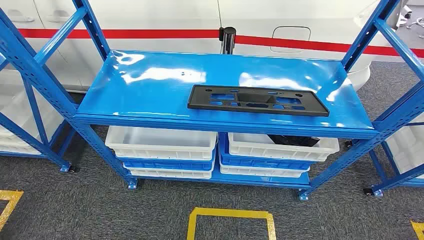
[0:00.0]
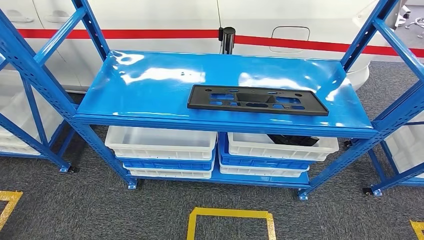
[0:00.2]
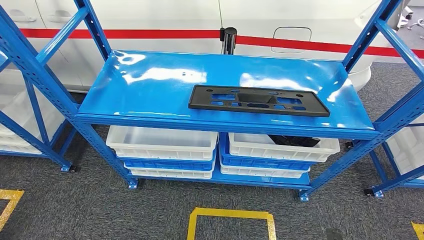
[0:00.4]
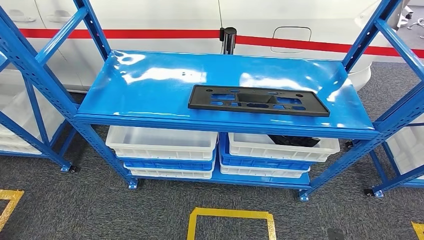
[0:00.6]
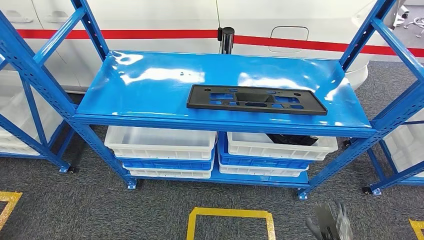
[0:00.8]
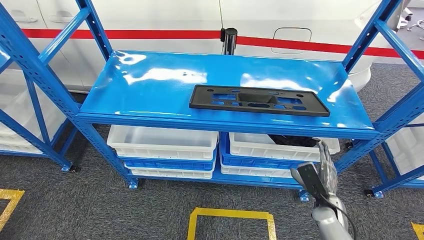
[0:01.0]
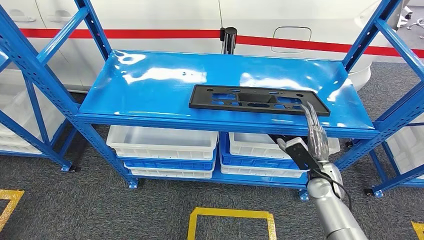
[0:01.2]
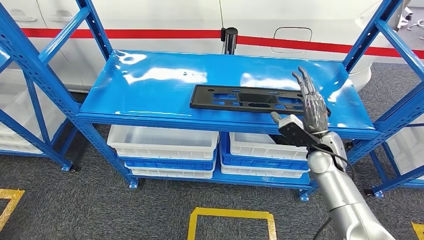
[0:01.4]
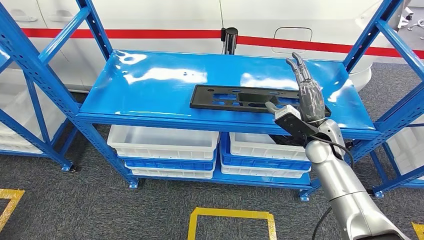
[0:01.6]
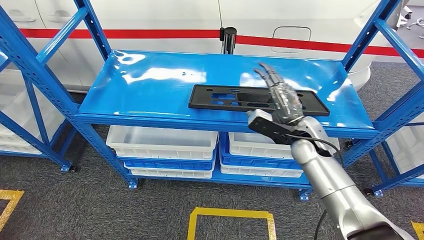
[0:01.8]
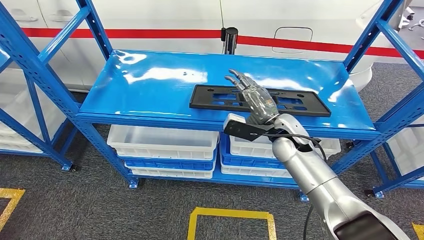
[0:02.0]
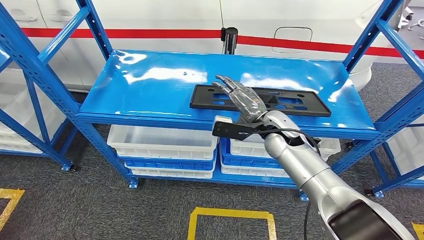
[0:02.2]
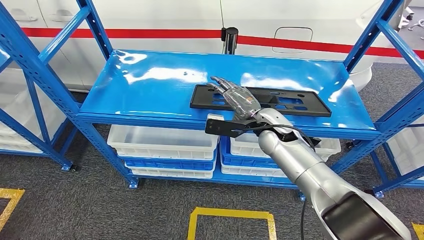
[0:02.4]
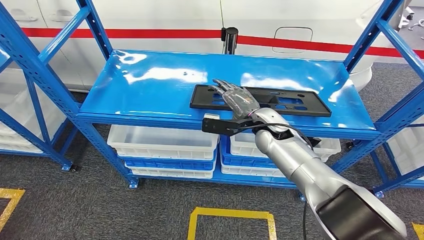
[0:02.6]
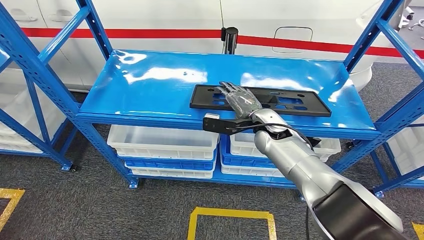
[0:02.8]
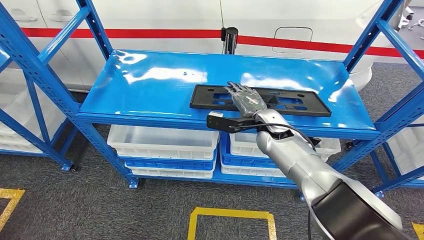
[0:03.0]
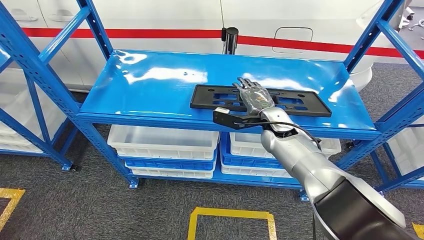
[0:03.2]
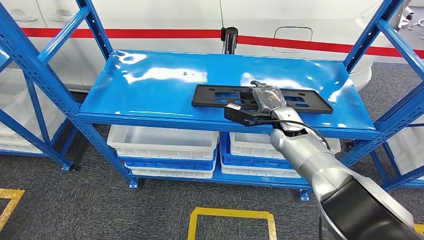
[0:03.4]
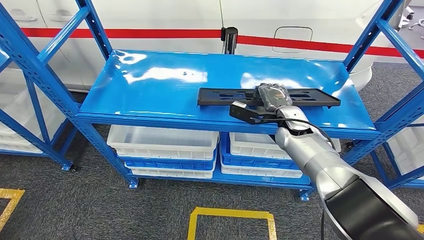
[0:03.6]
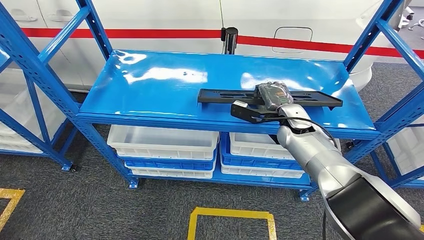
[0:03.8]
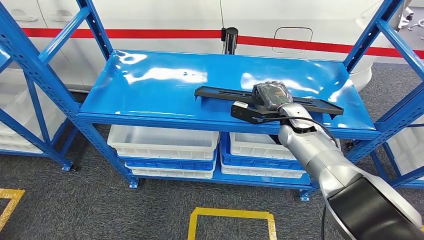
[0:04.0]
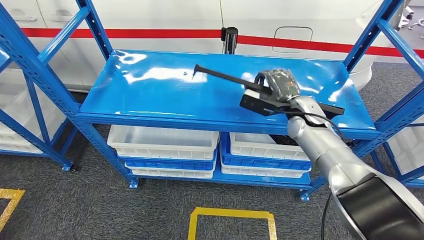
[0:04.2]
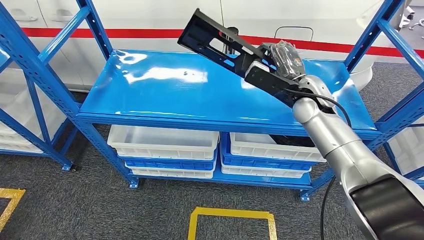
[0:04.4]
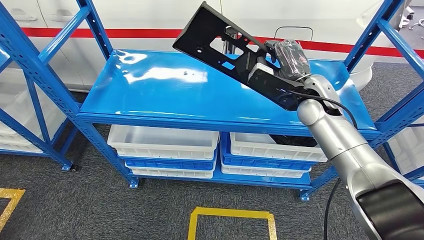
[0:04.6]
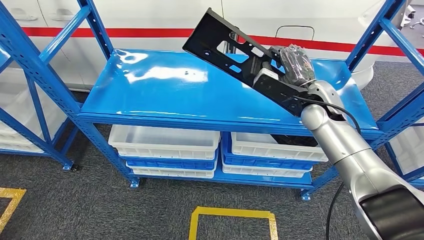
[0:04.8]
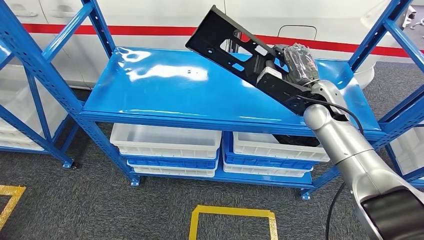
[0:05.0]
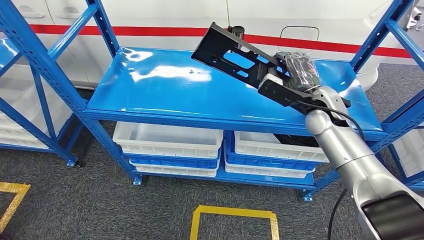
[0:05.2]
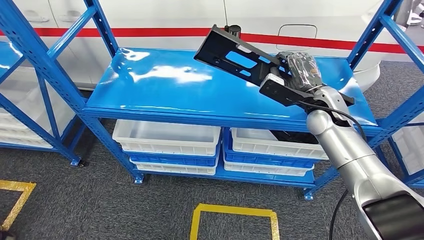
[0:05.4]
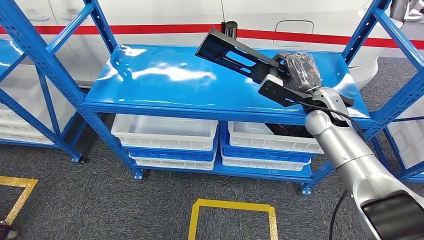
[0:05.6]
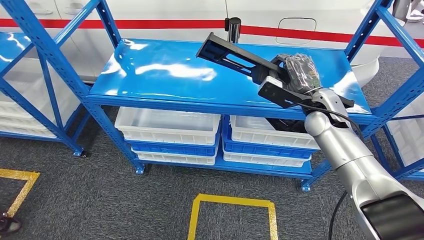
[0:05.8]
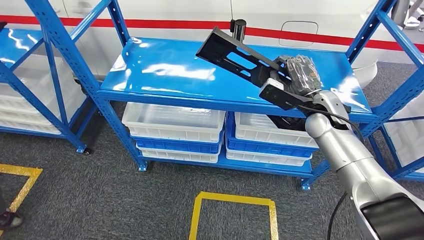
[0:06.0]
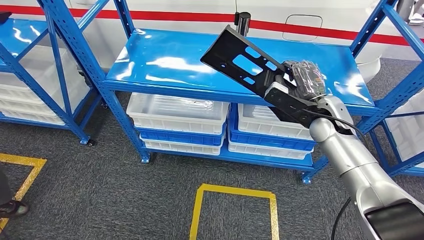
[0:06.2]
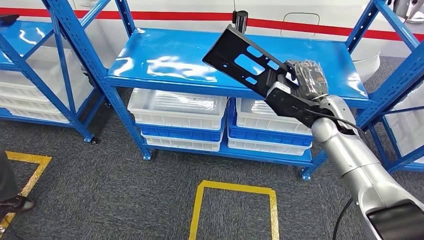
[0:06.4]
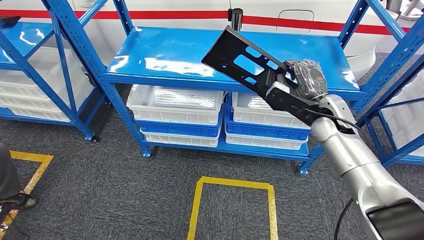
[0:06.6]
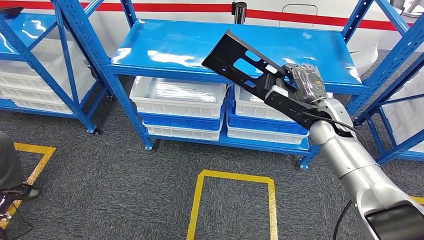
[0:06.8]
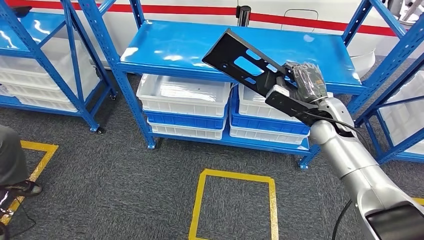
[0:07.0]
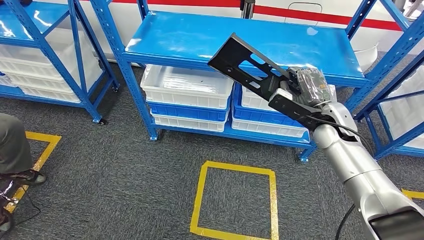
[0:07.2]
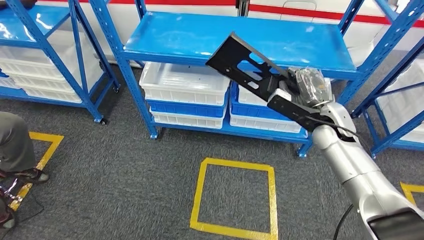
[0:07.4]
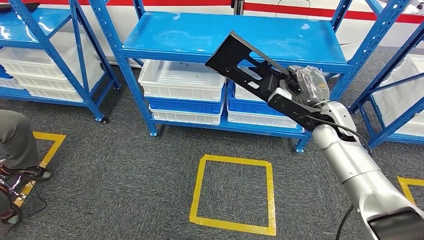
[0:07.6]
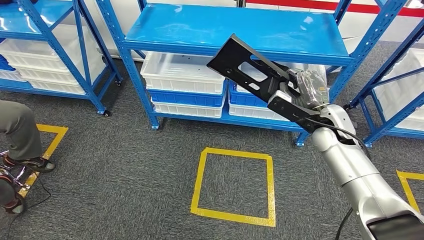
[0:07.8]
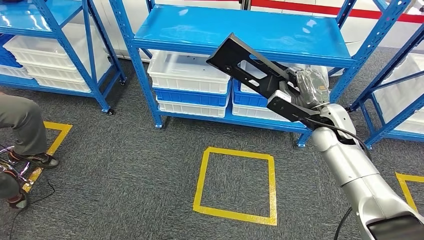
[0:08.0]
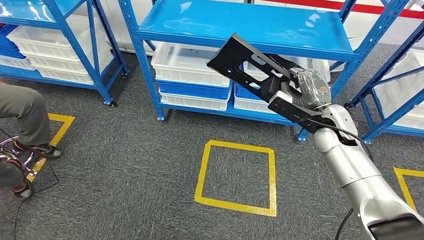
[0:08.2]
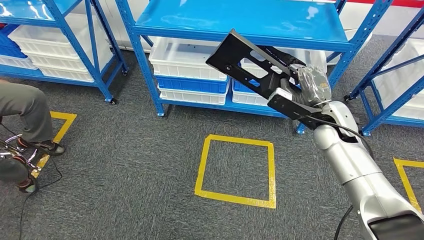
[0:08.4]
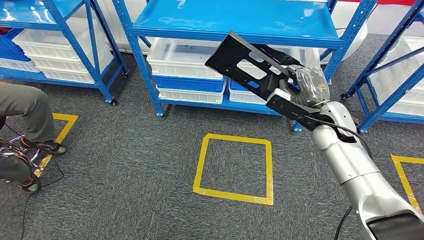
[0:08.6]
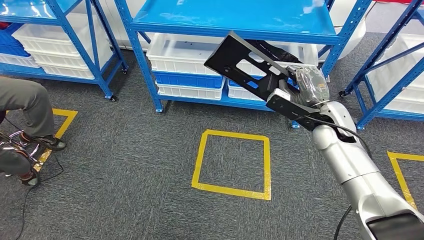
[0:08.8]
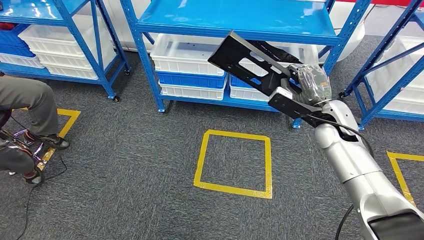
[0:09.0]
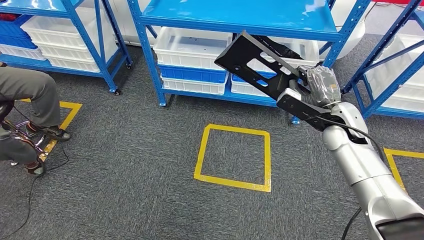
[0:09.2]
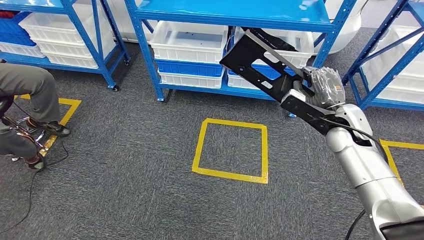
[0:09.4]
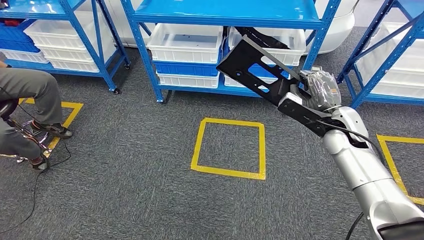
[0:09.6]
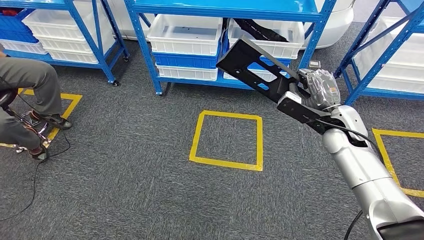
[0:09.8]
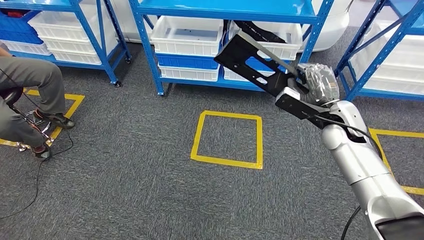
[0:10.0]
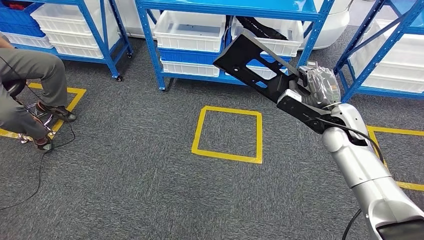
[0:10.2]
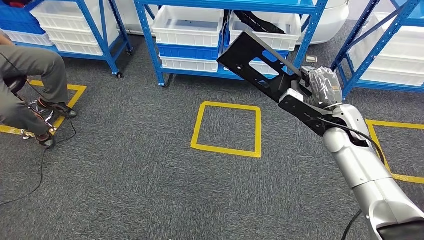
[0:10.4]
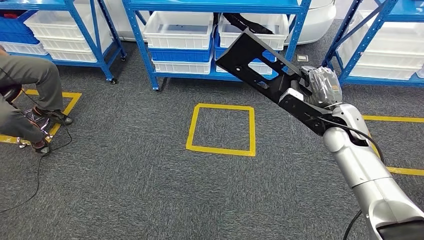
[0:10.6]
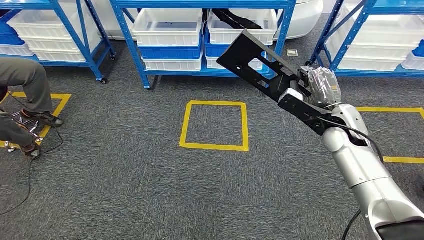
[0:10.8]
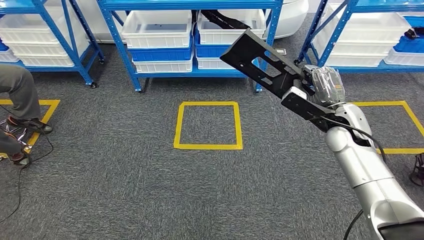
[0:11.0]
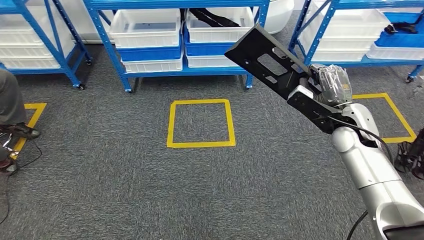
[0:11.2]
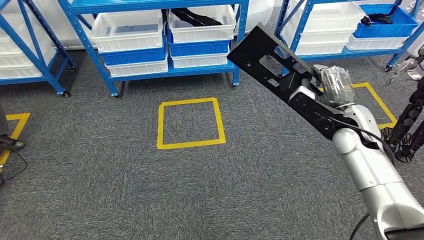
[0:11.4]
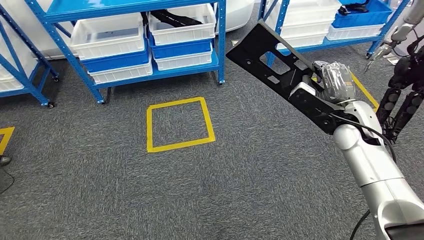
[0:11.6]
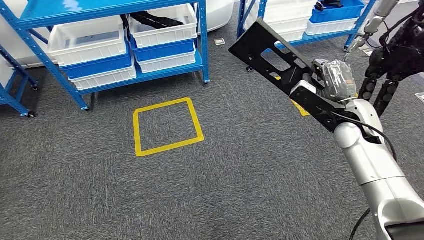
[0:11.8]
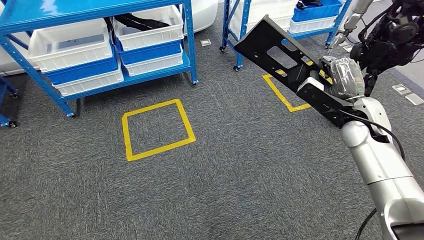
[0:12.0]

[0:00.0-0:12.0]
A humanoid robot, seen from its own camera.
Step, 0:00.0 to 0:05.0: Pick up the large material from the shelf.
0:01.6 to 0:03.0: The right hand is displaced to the left by about 15 cm.

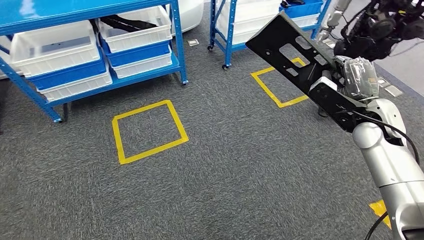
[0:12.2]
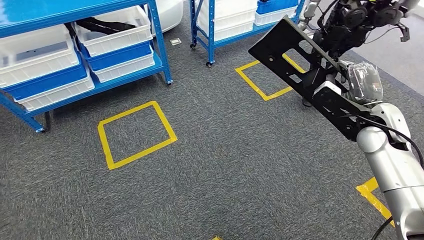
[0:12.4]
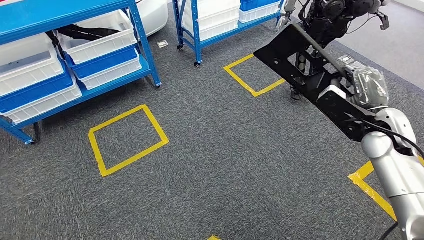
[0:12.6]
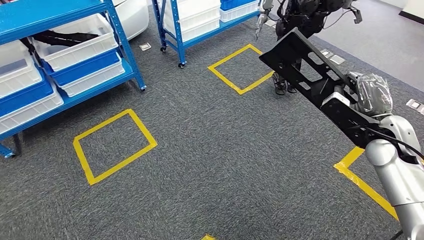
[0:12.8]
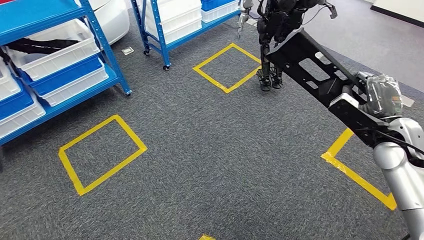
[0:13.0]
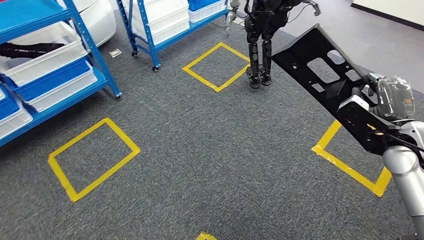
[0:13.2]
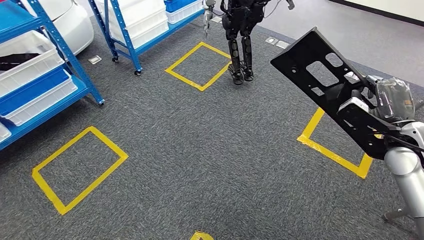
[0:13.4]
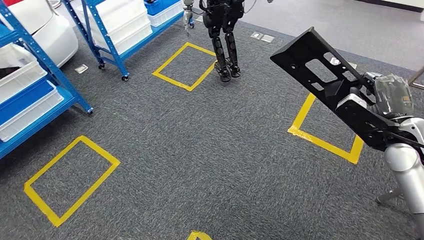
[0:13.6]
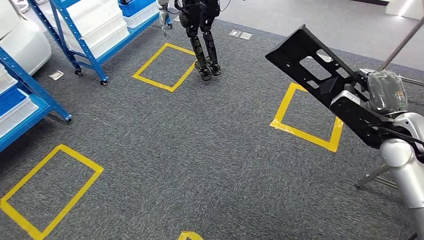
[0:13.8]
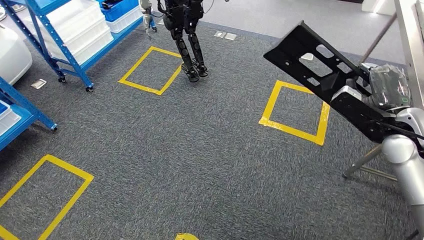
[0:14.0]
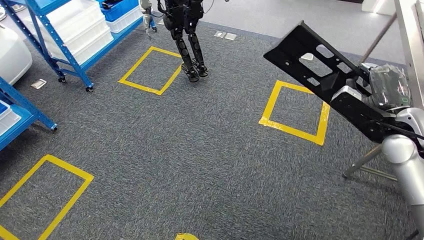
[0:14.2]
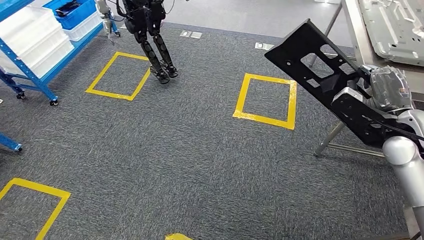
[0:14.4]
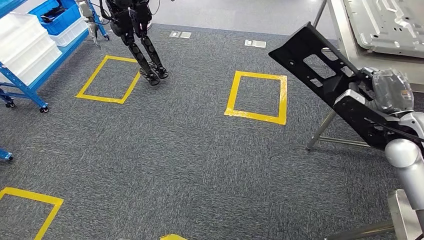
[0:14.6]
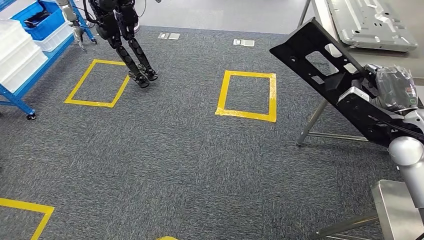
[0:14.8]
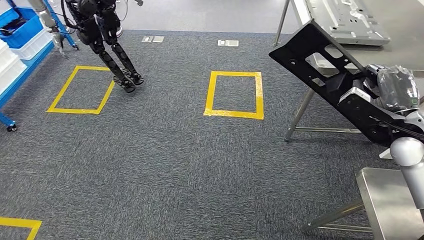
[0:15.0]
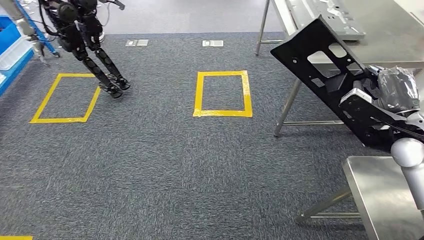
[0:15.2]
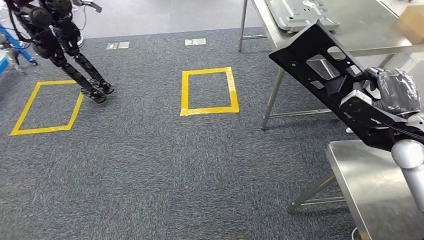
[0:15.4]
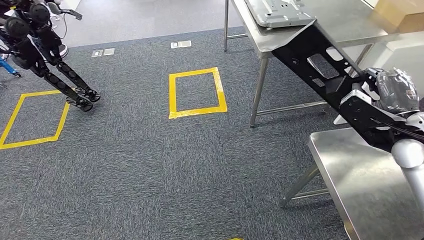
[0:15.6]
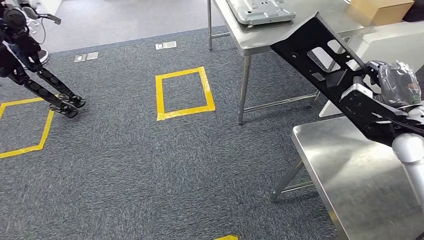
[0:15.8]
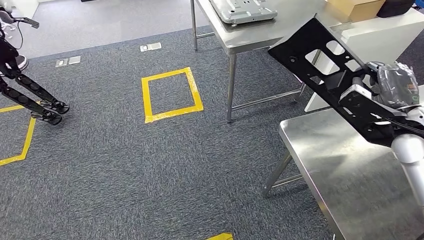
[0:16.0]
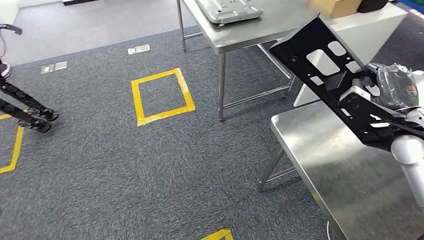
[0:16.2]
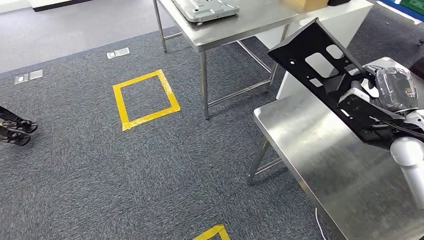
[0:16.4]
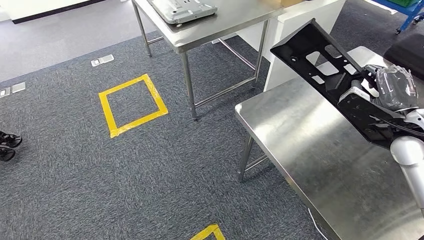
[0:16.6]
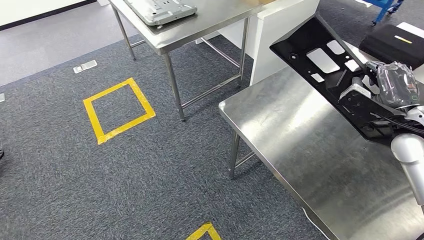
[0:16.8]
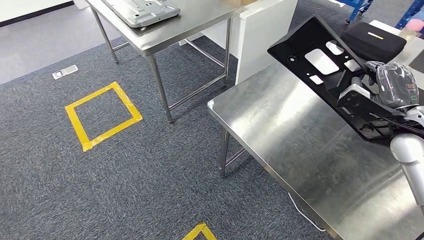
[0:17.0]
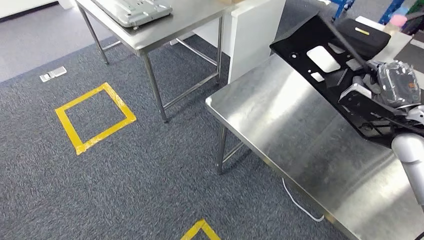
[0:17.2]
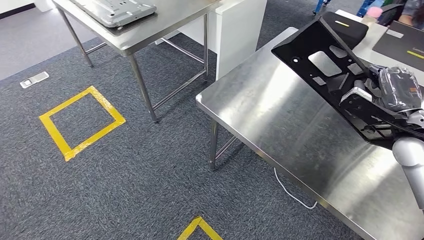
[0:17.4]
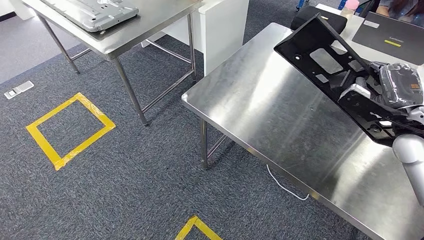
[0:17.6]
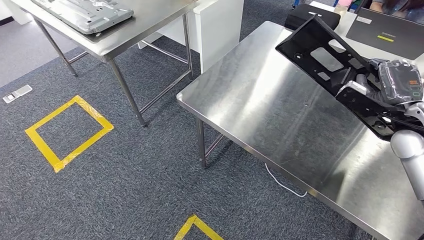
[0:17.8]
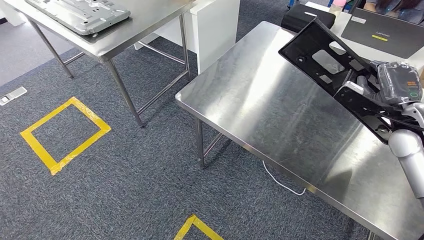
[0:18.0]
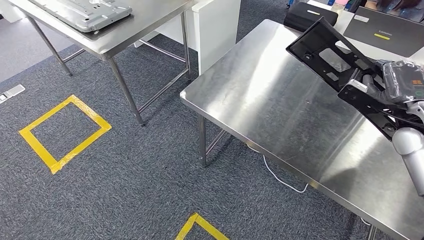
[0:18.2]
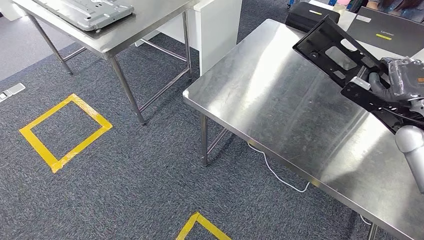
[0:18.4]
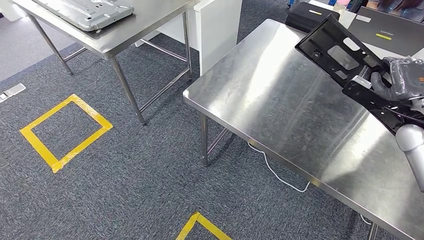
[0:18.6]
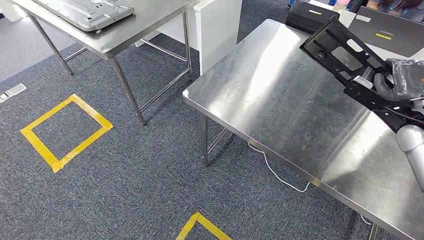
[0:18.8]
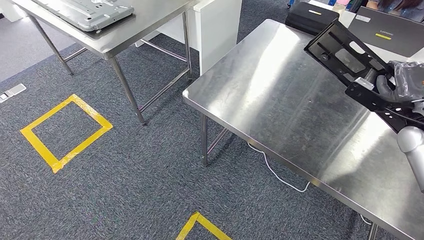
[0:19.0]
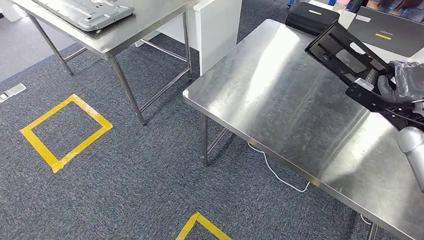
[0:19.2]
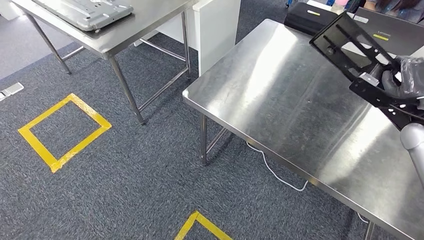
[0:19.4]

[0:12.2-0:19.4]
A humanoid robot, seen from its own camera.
Step, 0:12.2 to 0:15.8: Move the large material to the workbench.
